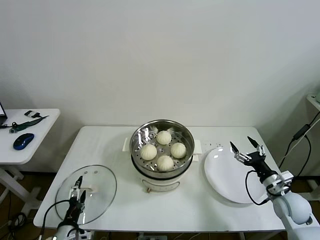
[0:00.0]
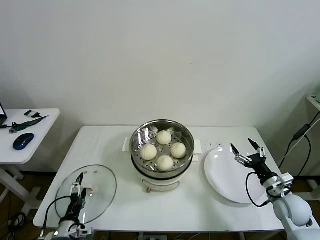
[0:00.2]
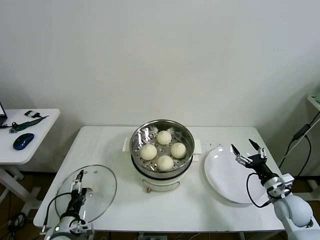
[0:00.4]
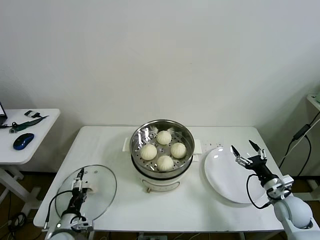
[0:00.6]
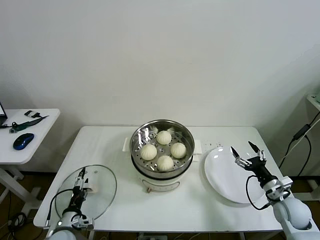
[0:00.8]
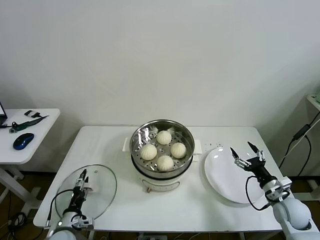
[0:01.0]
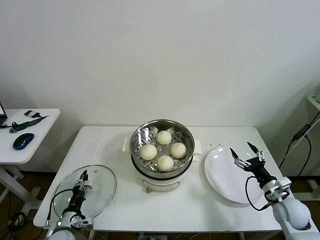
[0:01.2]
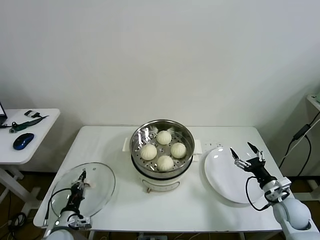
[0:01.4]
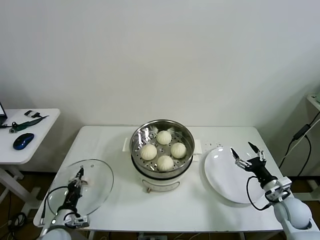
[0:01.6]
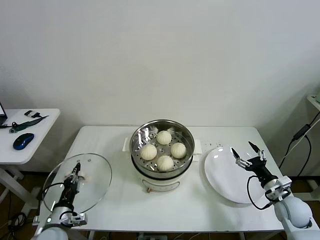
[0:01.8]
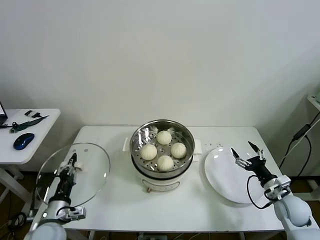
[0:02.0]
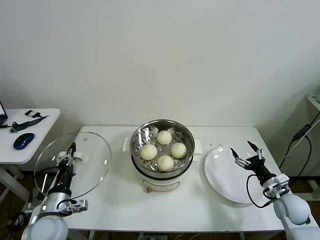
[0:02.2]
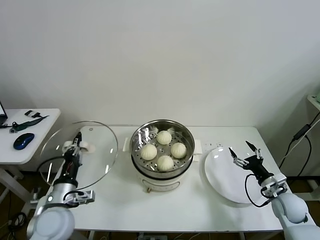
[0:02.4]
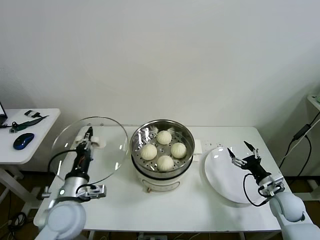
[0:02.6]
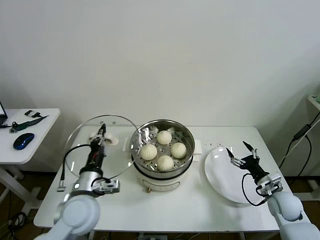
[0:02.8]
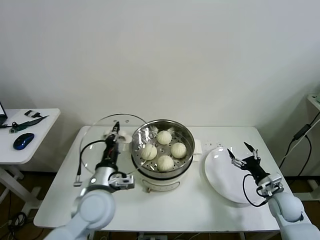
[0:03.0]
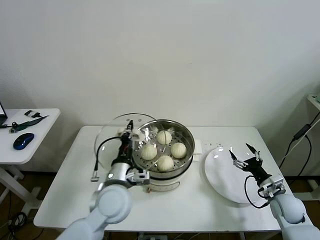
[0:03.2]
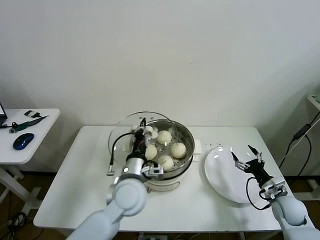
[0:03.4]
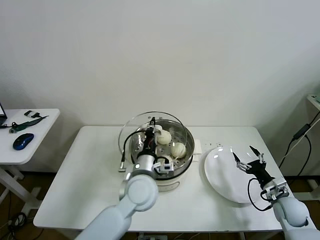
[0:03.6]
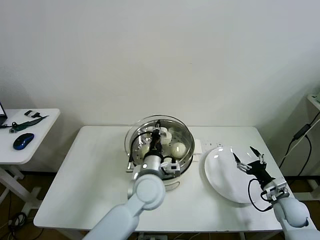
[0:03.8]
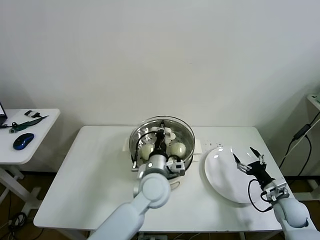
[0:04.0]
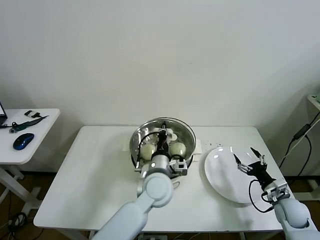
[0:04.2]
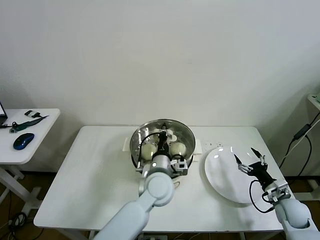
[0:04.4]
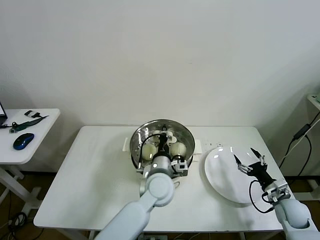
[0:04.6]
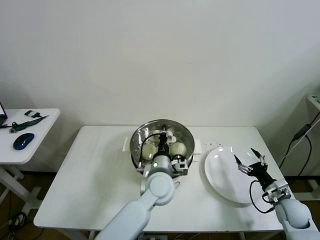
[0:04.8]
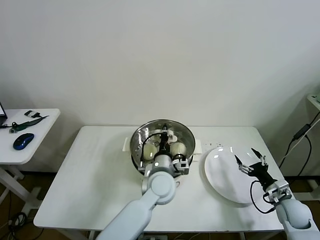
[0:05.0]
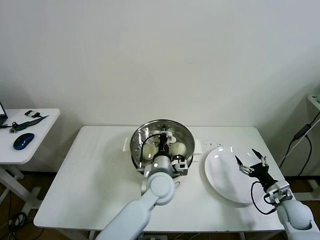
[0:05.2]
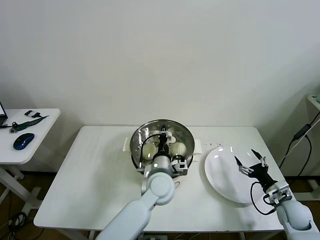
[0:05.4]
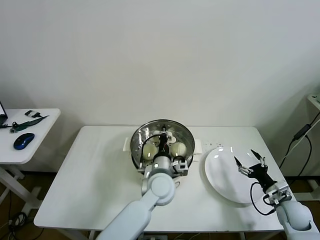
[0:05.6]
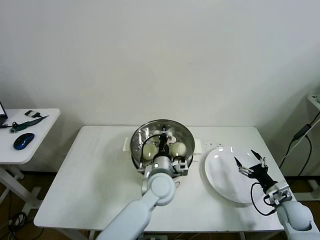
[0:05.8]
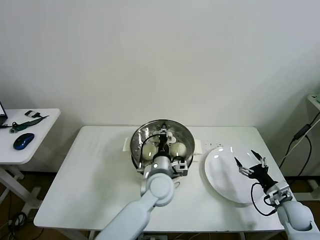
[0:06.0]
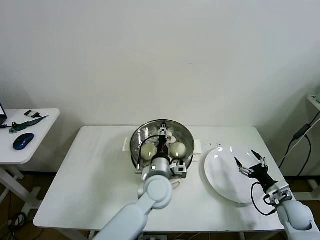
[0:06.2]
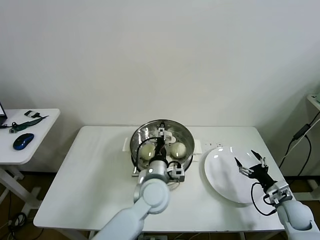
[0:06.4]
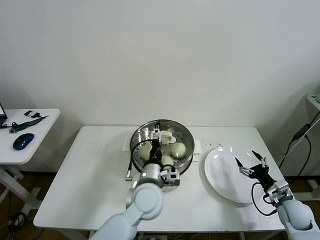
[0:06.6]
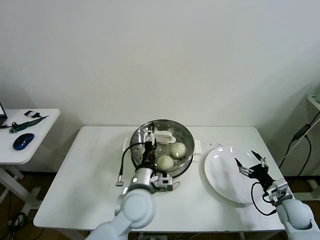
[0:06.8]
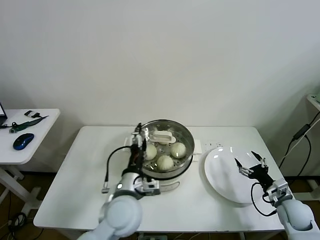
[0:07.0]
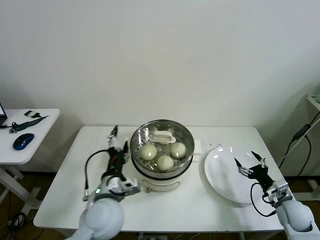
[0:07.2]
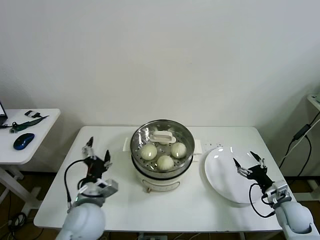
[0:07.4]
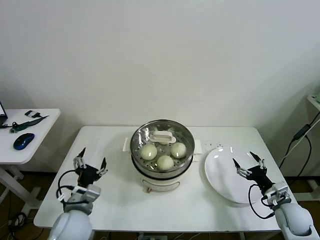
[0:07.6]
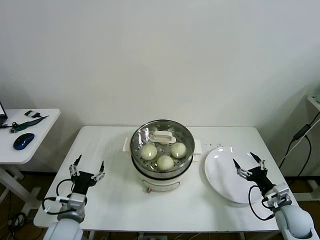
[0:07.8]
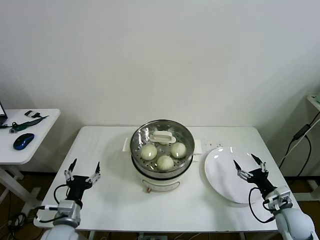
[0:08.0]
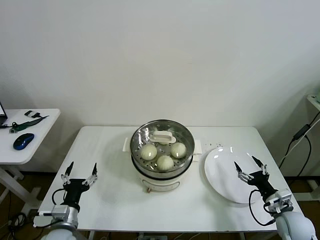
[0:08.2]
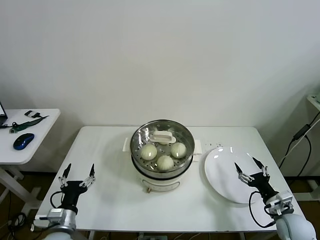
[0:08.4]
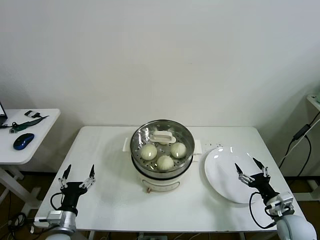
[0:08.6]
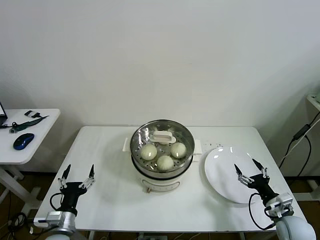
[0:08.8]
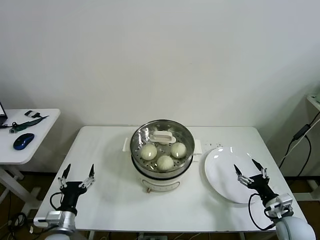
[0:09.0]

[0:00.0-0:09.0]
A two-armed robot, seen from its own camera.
Task of the whole recording: take steamed baozi put them in steamer then cover it.
Step, 0:01.8 to 0:06.2: Place the pot lid on the steamer with left gripper.
0:00.0 to 0:01.6: The left gripper is displaced forward by approximately 5 cm, and closes.
0:01.6 to 0:03.0: The left gripper shifts roughly 25 cm upward and to the right.
0:03.0 to 0:04.4: The left gripper heads to the right and forward, covering some 20 cm.
0:04.4 to 0:06.0: The grippers make only small movements.
0:06.0 to 0:07.6: The left gripper travels to the left and backward by about 25 cm, and opens.
0:07.6 to 0:09.0: The left gripper moves downward and to the left, approximately 10 cm.

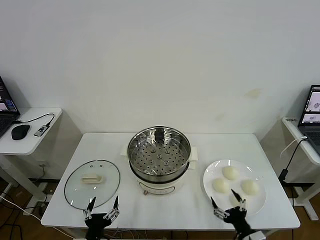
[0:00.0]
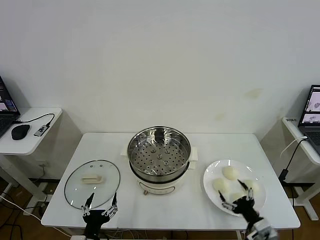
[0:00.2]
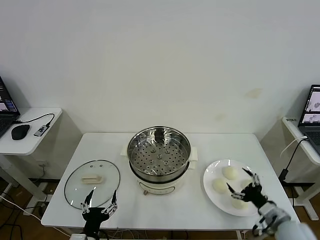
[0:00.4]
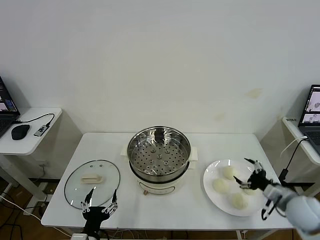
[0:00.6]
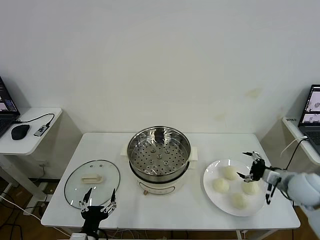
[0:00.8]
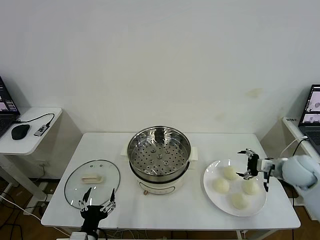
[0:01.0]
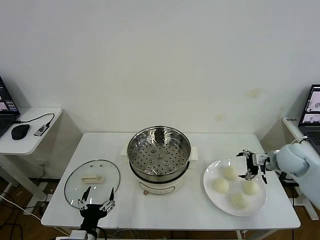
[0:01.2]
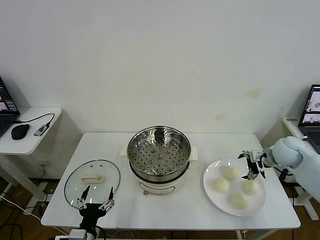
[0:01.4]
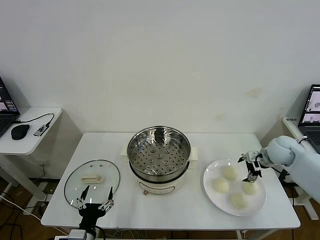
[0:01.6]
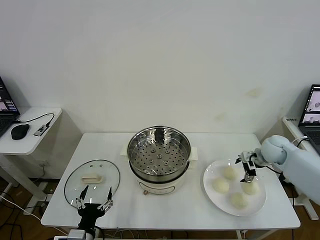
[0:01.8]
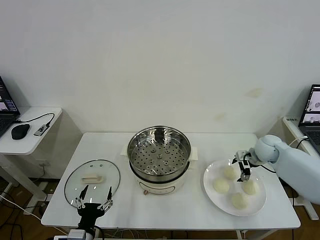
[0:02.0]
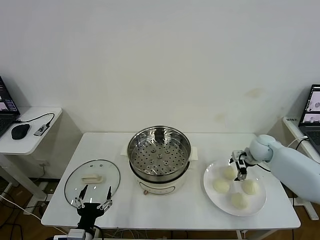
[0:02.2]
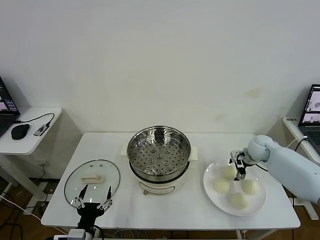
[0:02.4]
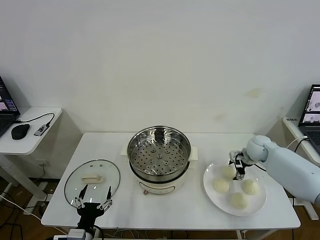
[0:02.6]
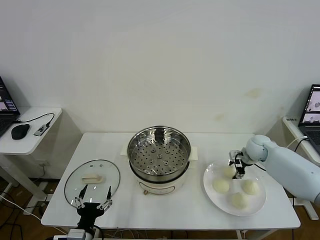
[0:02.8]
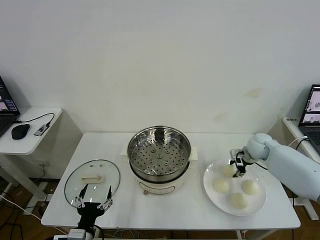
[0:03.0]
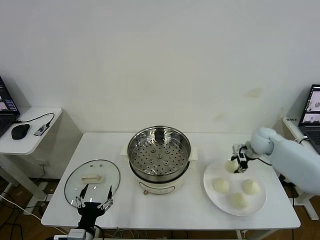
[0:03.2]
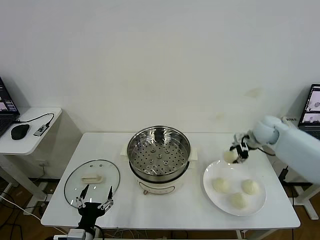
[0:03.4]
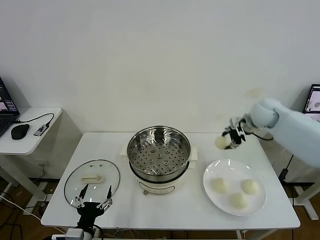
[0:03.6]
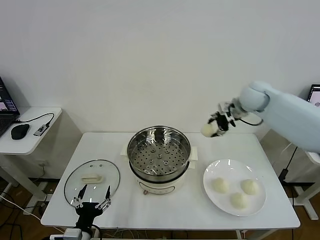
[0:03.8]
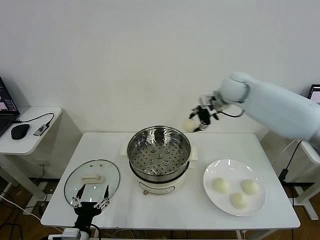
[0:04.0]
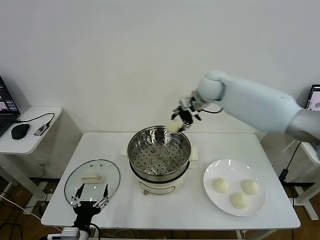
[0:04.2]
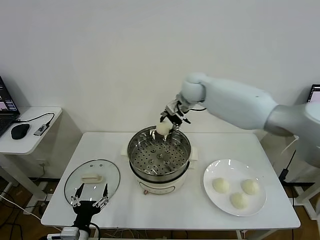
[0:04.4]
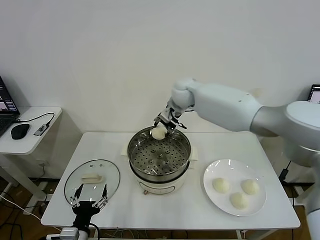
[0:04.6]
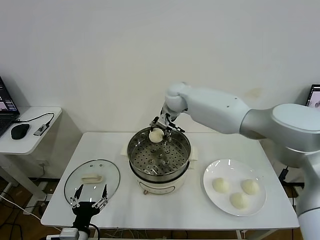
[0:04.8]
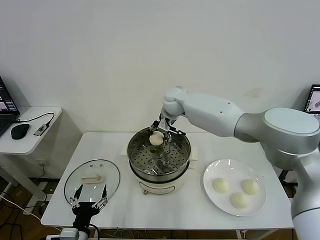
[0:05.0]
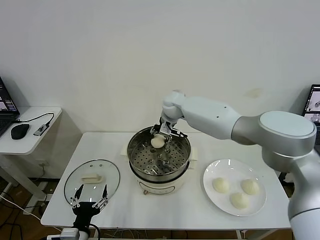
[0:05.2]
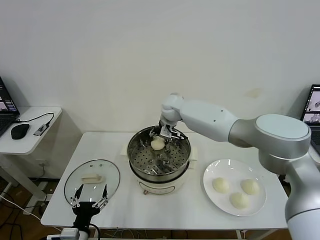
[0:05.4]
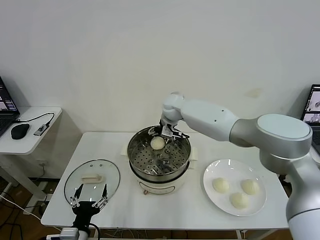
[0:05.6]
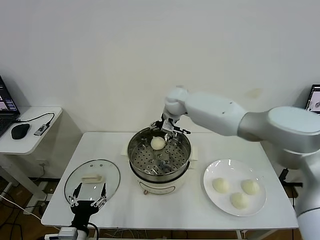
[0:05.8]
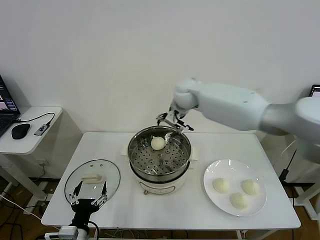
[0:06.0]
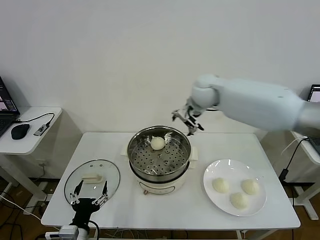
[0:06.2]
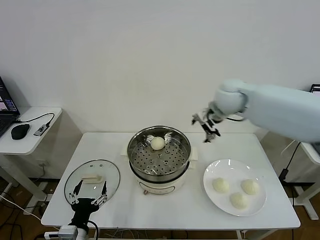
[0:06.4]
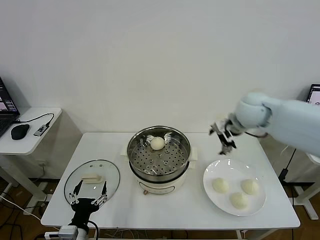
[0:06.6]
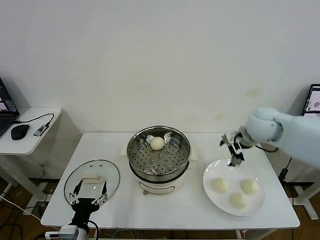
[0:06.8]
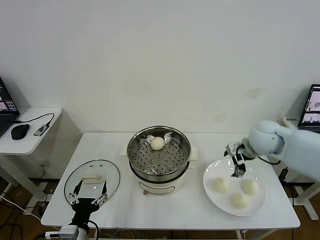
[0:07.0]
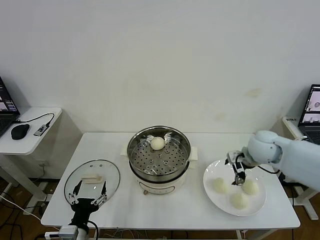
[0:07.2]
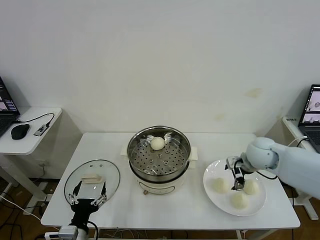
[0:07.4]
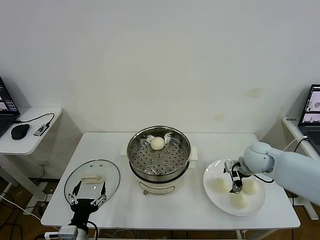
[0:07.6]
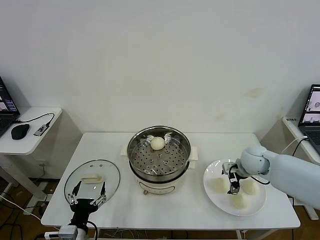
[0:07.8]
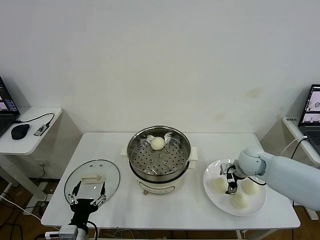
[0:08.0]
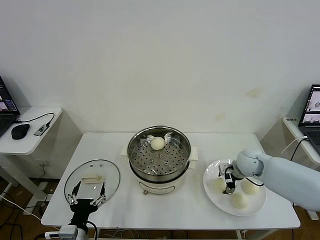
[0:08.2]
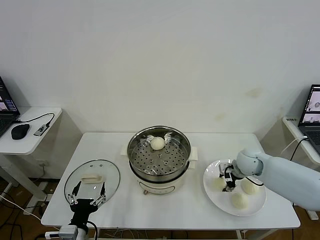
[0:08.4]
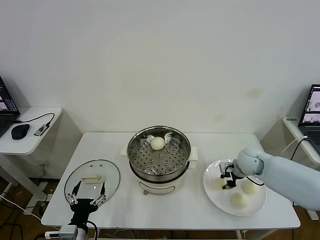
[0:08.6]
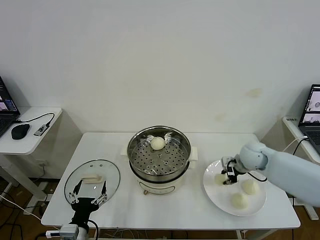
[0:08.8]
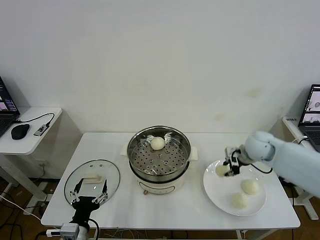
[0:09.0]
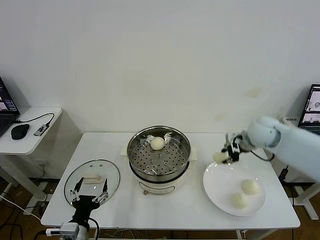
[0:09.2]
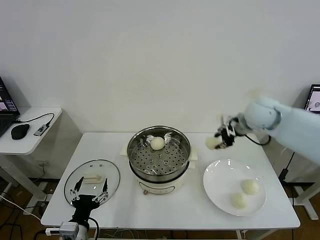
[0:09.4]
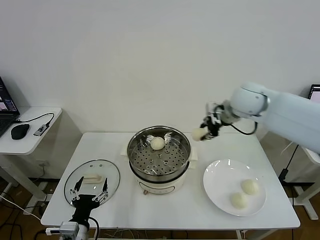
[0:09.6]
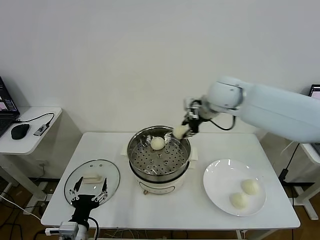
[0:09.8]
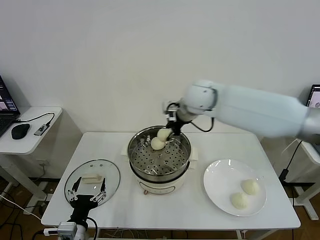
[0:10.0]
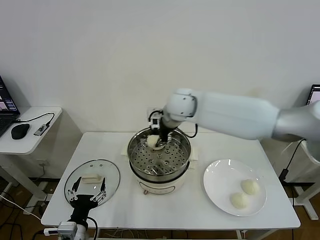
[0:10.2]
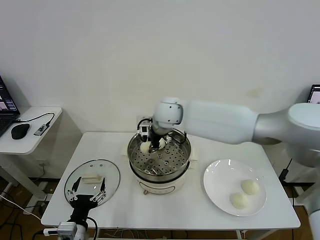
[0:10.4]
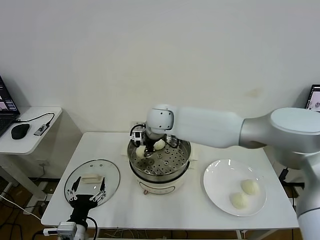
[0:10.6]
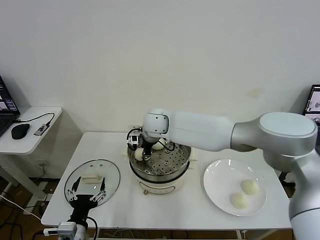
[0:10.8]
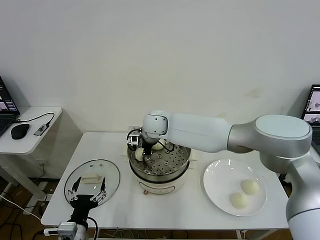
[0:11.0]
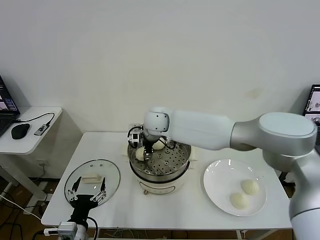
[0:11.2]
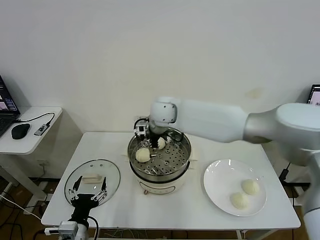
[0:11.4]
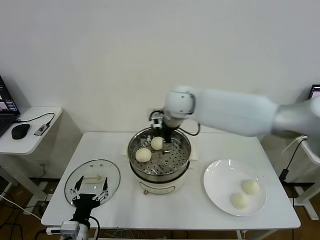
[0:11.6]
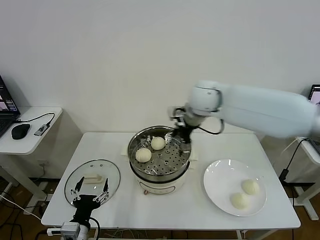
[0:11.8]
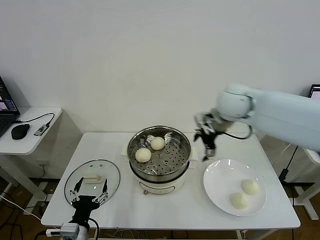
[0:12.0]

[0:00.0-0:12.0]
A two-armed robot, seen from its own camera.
Task of the whole recording: take steamed baozi put them in steamer then cover it.
Step, 0:00.0 to 0:02.8: Grasp the baozi in the plate with right gripper.
Step, 0:03.2 to 0:05.6: Place the baozi on the steamer with right gripper.
Step, 0:05.8 to 0:08.4: Grasp the baozi in the plate with right gripper.
Step, 0:08.8 to 0:11.2: Place the baozi on the steamer with right gripper.
0:01.6 to 0:03.0: The right gripper ends up some 5 cm from where it was, and closes up.
0:03.0 to 0:04.4: The right gripper is displaced to the left and upward by some 35 cm.
0:04.4 to 0:06.0: The right gripper moves about 10 cm downward and comes back, and opens.
0:06.0 to 0:07.6: The right gripper travels to the right, downward and backward by approximately 30 cm.
0:07.6 to 0:09.0: The right gripper is displaced upward by approximately 5 cm, and closes.
0:09.0 to 0:10.4: The right gripper moves to the left, some 30 cm.
0:10.4 to 0:12.0: The right gripper moves to the right, about 20 cm, and opens.

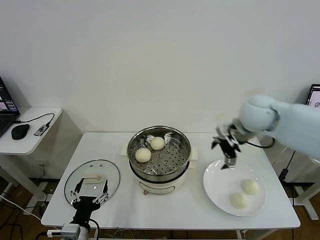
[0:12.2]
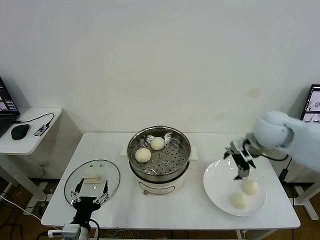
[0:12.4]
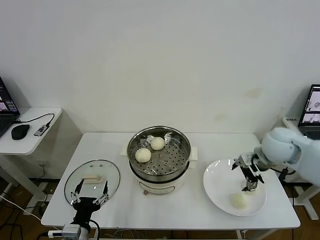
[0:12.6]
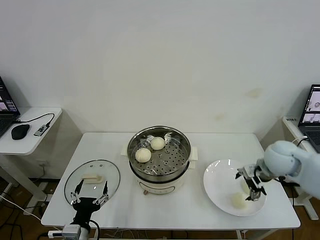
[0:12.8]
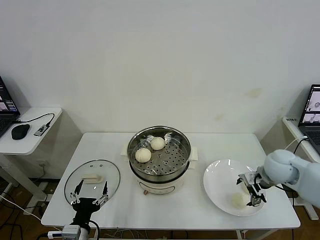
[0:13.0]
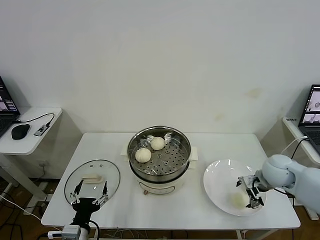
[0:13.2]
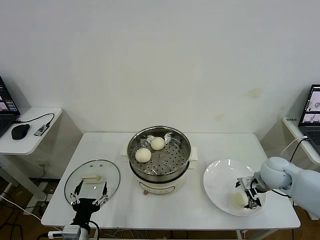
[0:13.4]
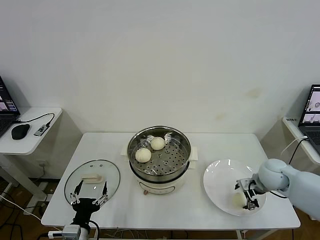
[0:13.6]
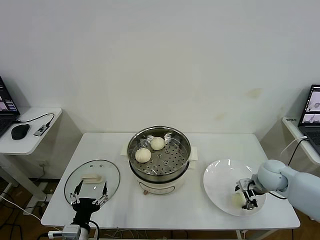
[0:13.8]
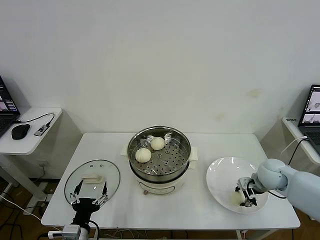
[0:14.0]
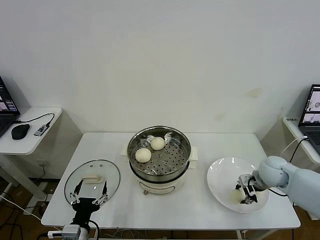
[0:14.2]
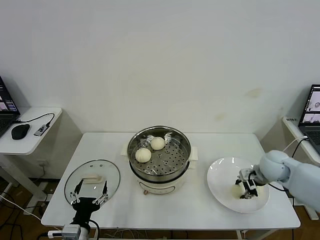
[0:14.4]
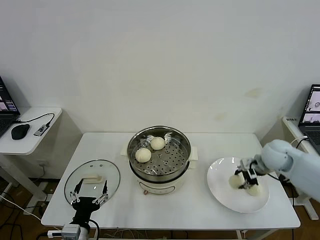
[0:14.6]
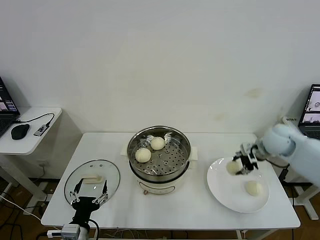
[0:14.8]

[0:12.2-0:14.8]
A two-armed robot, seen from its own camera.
Task of the whole recording: take steamed baozi put them in steamer then cover it.
Step, 0:12.2 to 0:14.2: Grasp the baozi in the plate with right gripper.
0:12.2 to 0:13.4: The right gripper moves downward and to the right, some 20 cm.
0:13.4 to 0:14.8: The right gripper goes about 15 cm upward and forward, and closes up.
